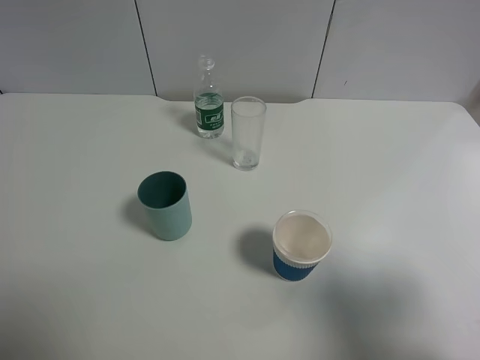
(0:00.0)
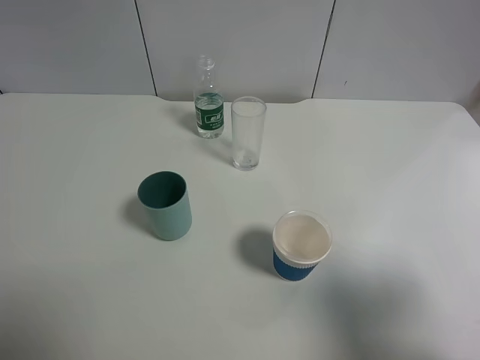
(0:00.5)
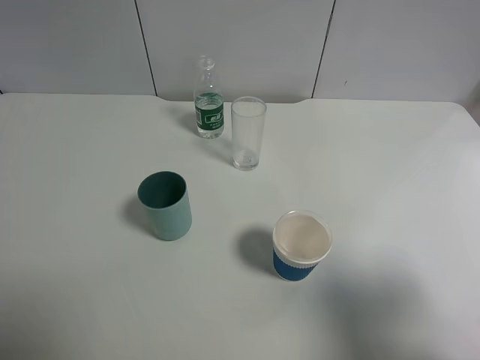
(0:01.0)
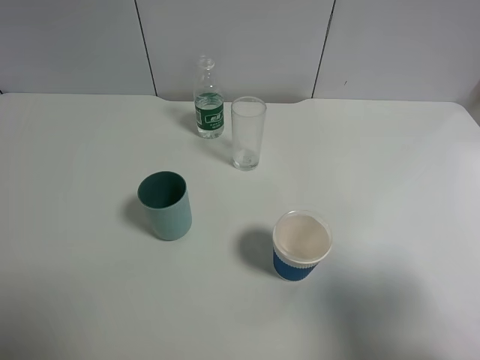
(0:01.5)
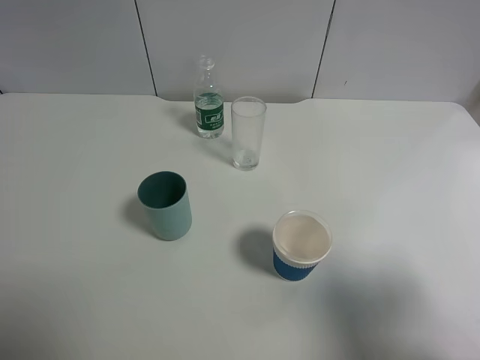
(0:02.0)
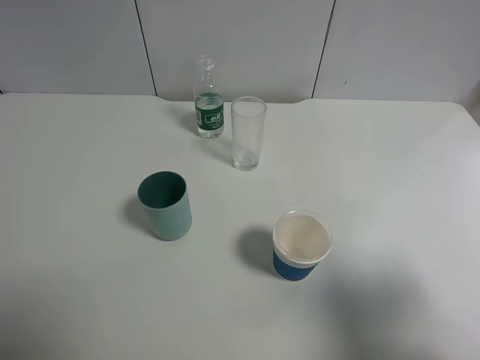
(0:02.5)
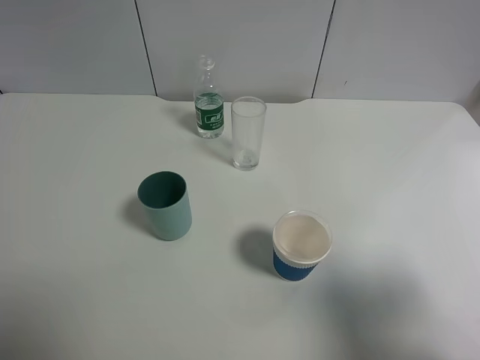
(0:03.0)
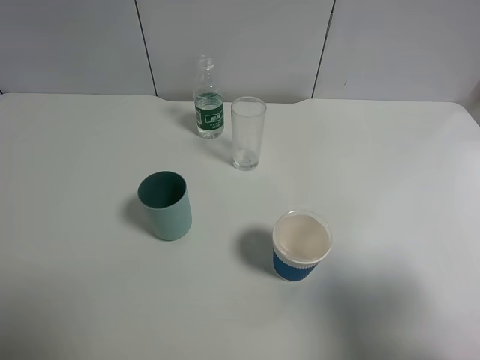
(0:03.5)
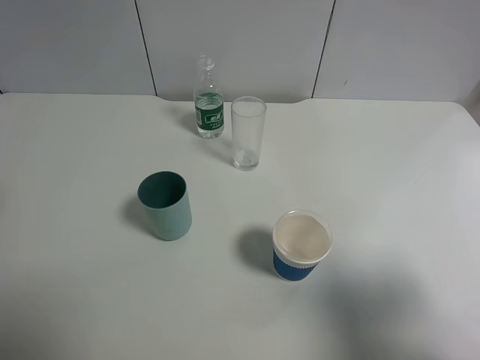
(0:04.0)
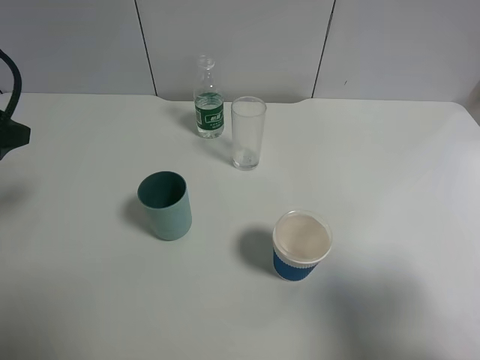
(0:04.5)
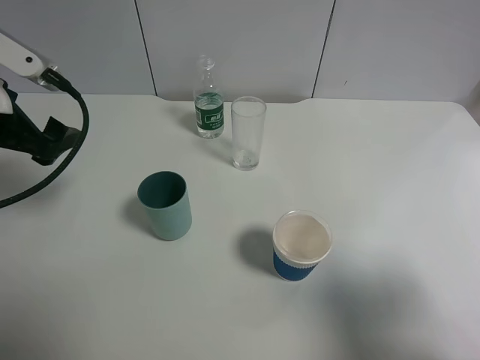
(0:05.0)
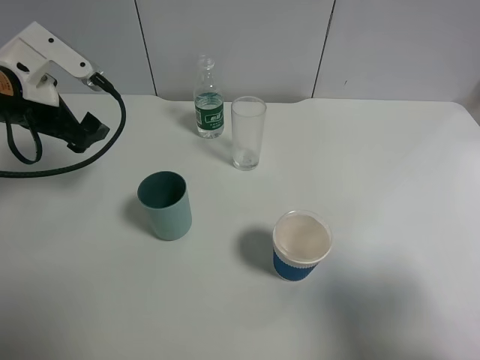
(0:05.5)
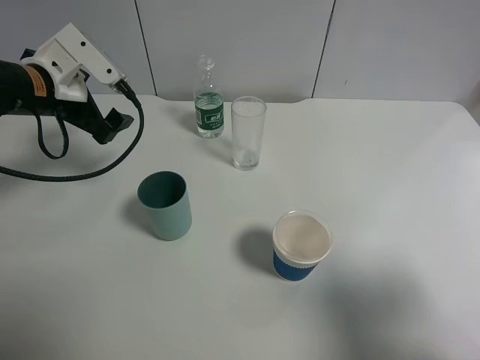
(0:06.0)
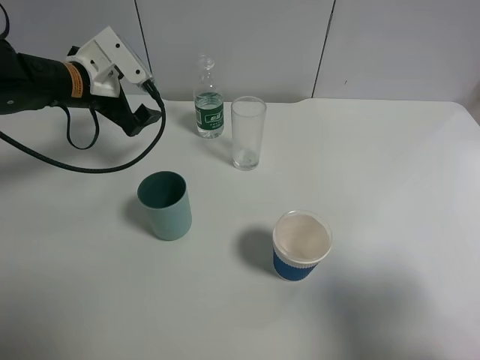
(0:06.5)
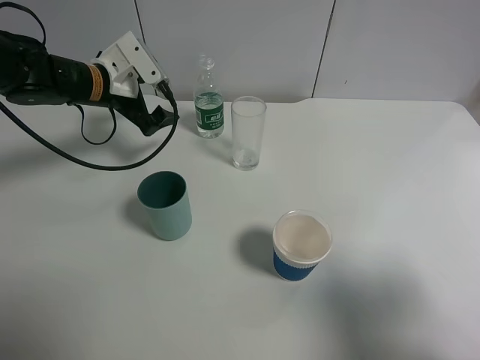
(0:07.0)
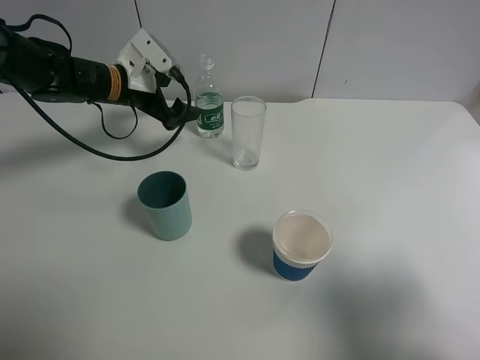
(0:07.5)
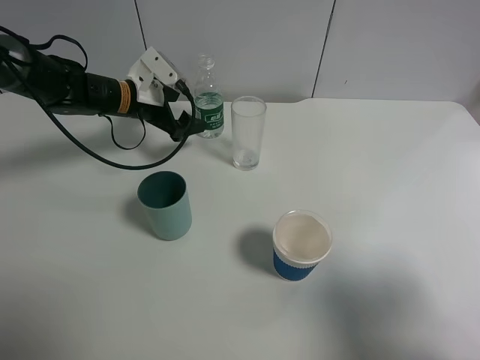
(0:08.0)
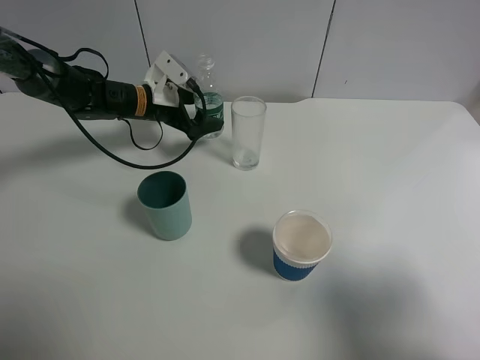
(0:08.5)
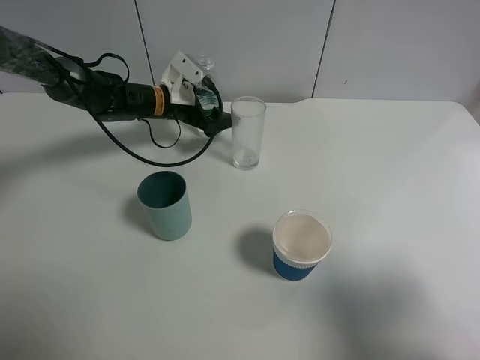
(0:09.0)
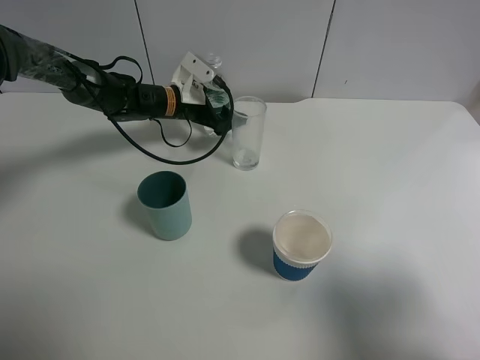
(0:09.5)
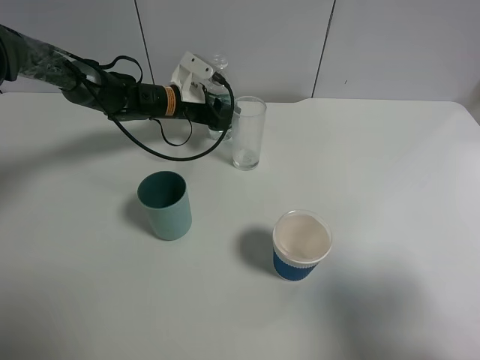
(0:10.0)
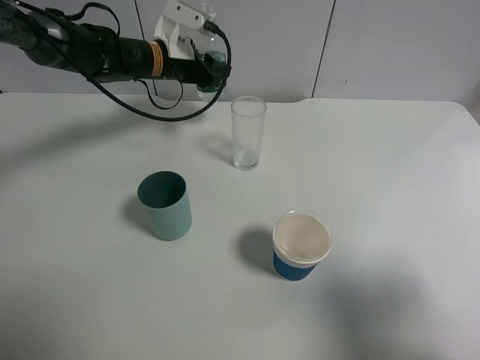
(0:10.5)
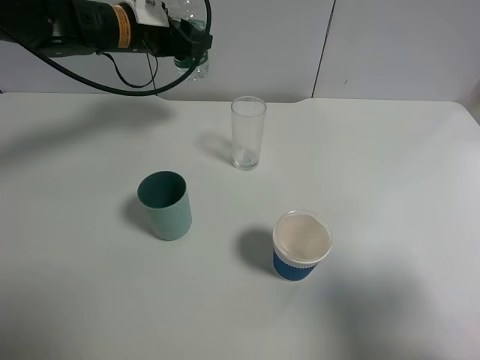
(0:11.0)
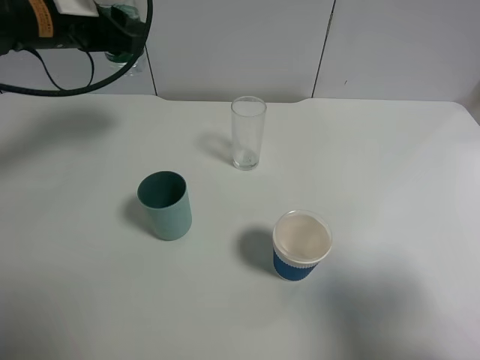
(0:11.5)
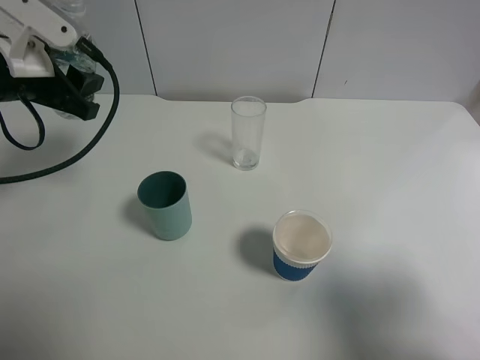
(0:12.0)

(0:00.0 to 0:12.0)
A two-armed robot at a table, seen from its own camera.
Task of the whole recording: use a gripper to hold the bottle of the drink and pour it into a random cup.
Step, 0:00.0 - 0:10.0: Grasp the mineral water bottle with the left gripper.
0:00.0 - 0:02.0: The two grippers keep their place.
0:04.0 - 0:06.0: The left gripper shifts about 20 cm forward and downward.
0:06.0 - 0:08.0: The left gripper travels forward, downward and to the right by about 15 cm.
0:08.0 - 0:10.0: The left gripper shifts about 5 cm to the right, and closes.
0:10.0 - 0:12.0: The left gripper shifts about 30 cm backward, upward and to the left.

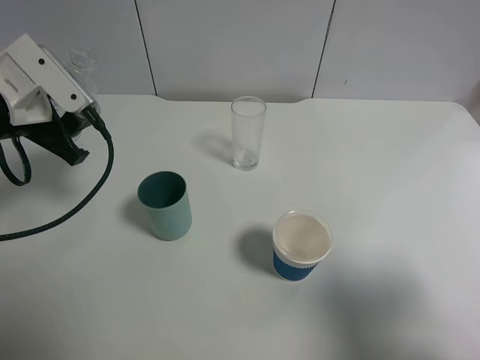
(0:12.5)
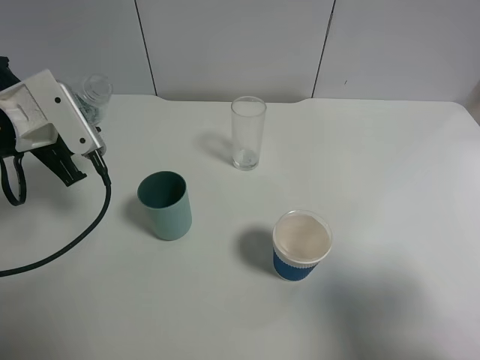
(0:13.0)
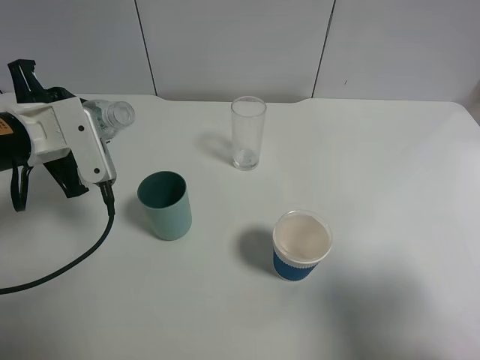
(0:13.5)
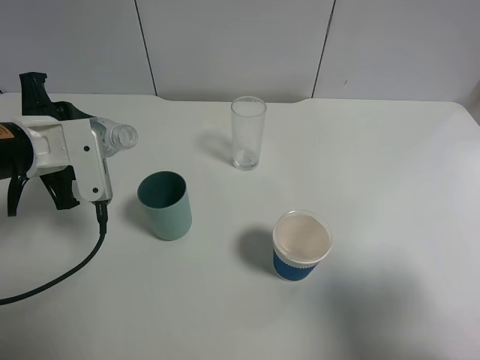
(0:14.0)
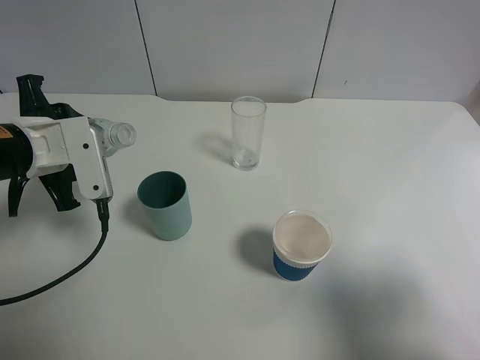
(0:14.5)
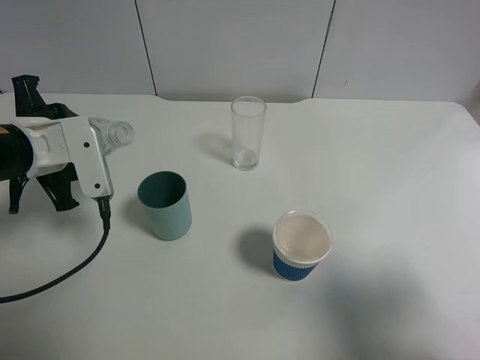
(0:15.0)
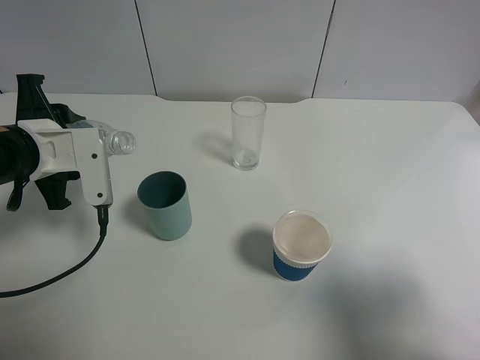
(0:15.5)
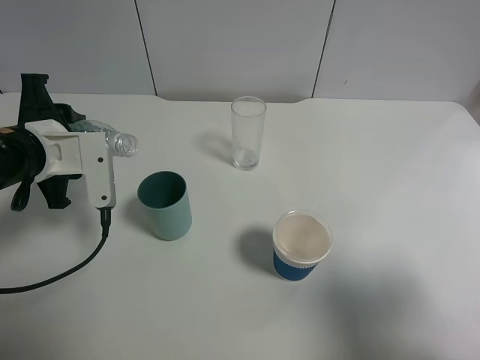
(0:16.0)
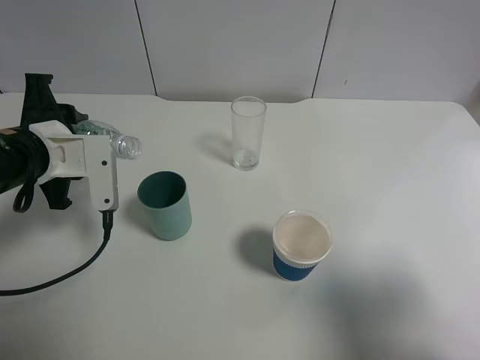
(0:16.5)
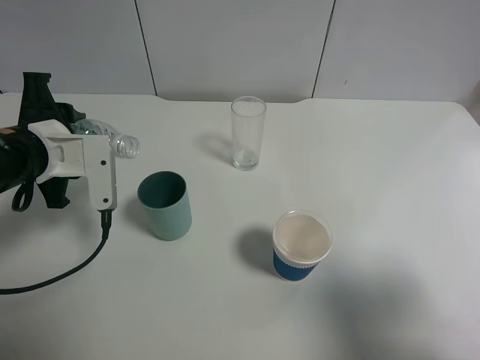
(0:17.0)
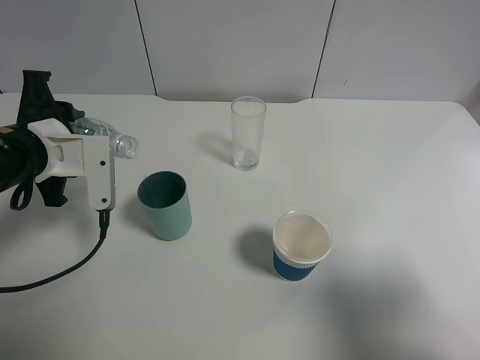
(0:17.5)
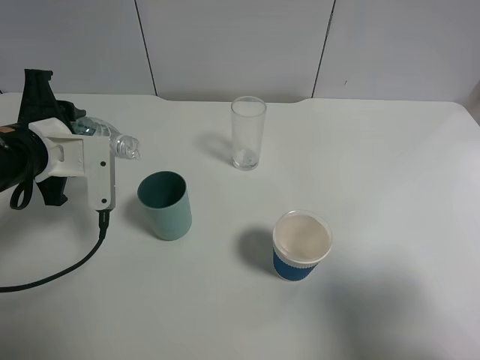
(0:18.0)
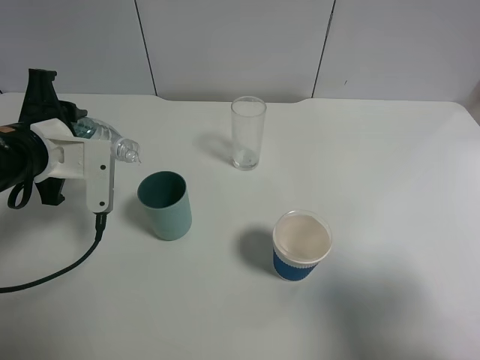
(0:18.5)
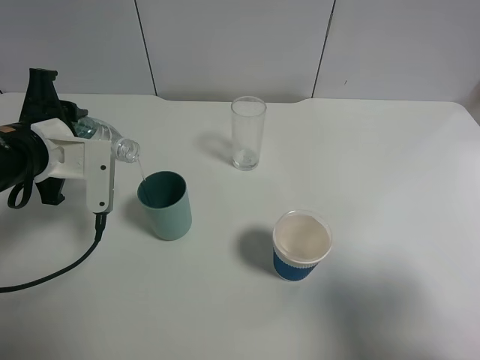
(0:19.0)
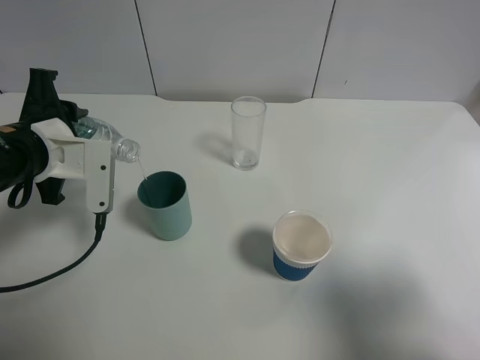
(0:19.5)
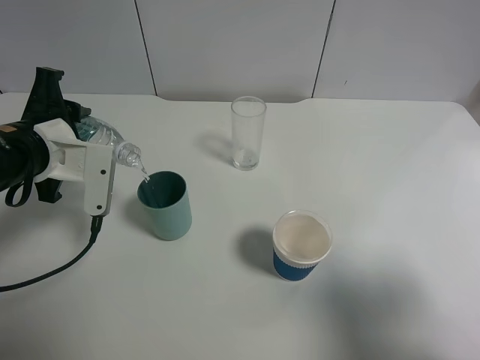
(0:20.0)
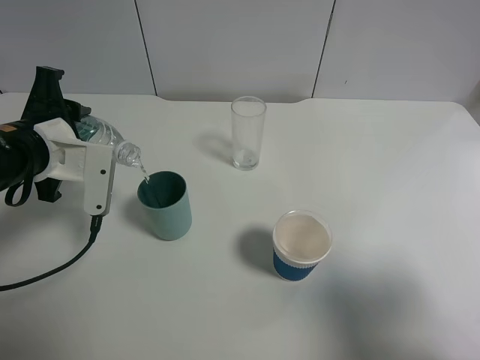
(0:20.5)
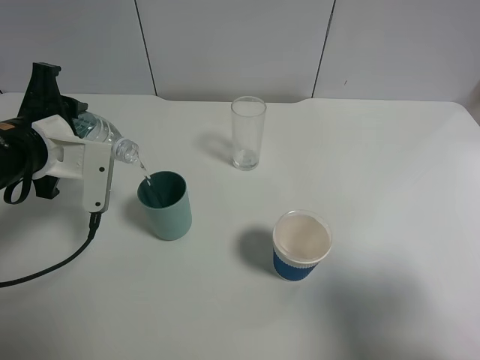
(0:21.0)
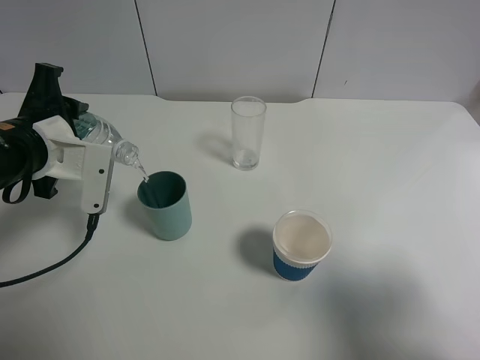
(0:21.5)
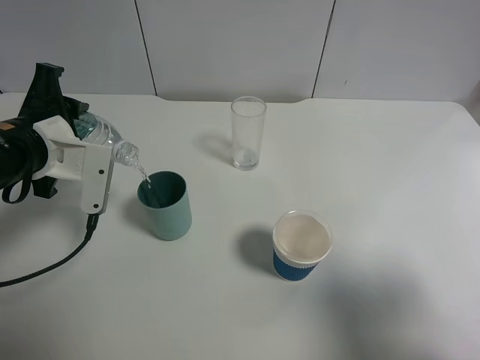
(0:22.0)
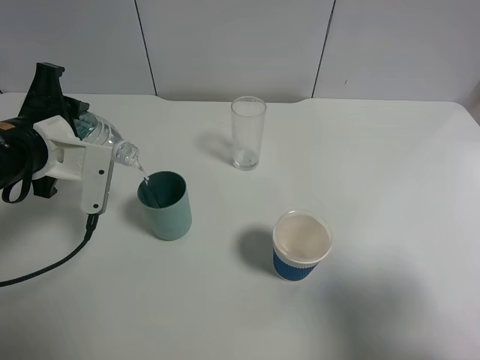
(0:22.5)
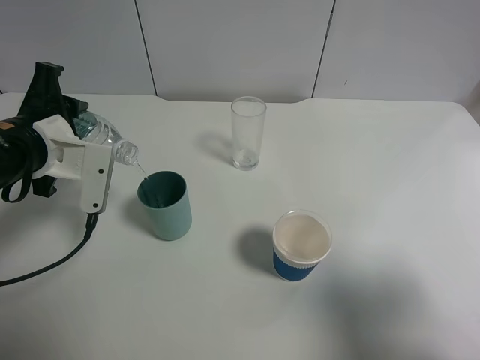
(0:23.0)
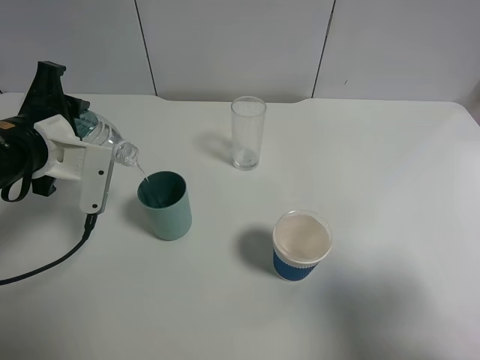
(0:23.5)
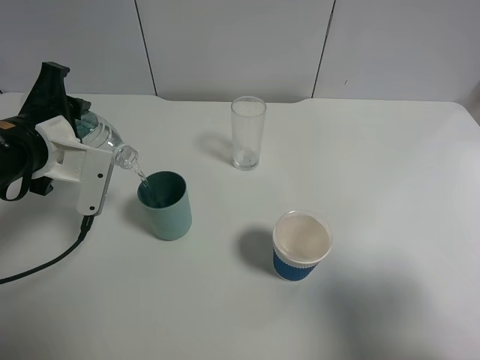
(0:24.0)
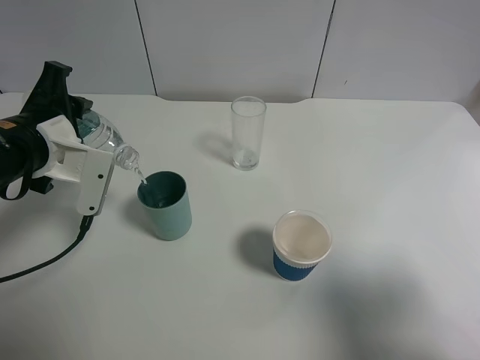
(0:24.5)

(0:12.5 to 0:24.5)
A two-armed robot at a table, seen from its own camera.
Task of the whole recording: use a gripper to hold the bottle of the drink and pour it into a random cup.
0:16.5 - 0:20.5: There are only small adjustments of the grippers.
0:20.5 - 0:22.5: The two grippers keep their place.
0:22.5 - 0:24.5: There are only small adjustments of the grippers.

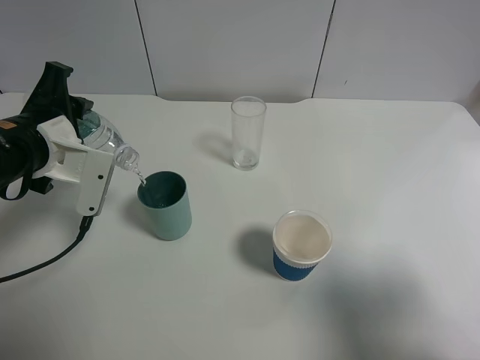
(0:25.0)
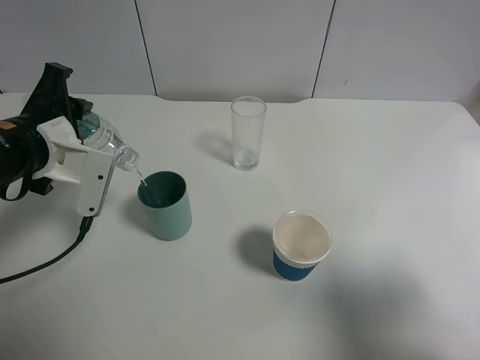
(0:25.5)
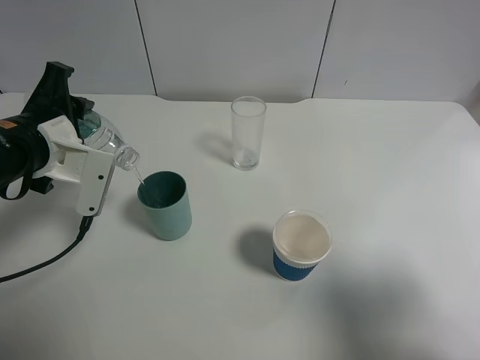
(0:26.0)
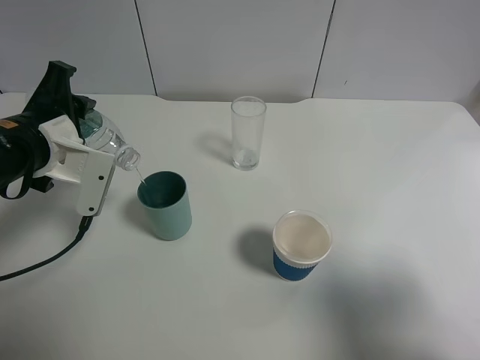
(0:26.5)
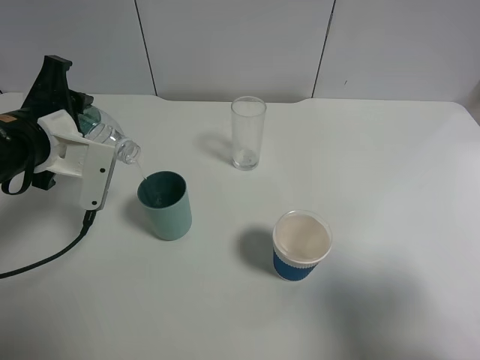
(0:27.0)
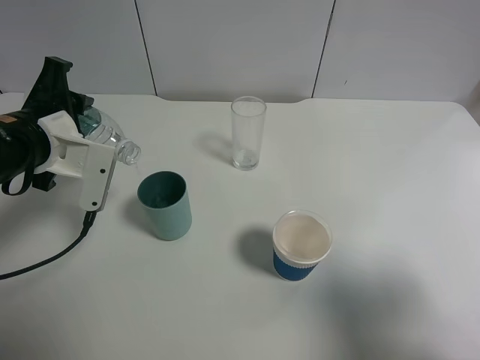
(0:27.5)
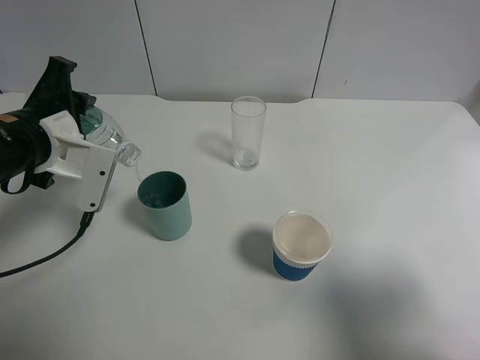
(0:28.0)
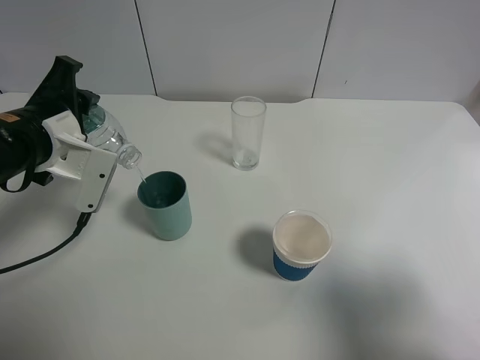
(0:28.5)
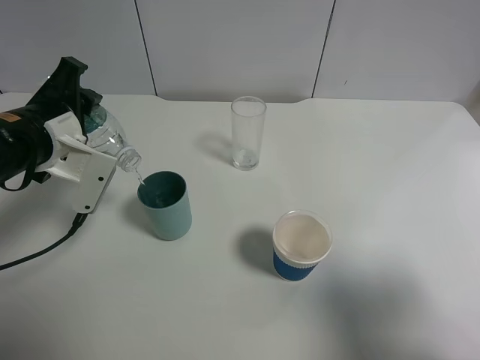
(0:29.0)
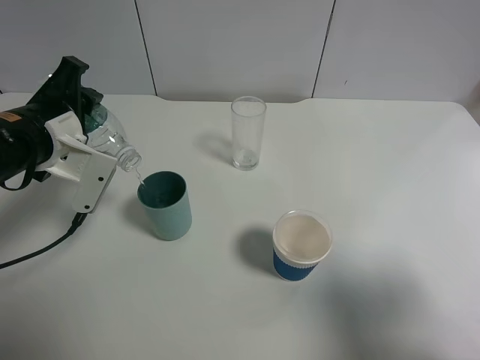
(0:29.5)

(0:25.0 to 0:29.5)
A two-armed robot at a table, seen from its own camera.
Task of the whole recording: use a gripper to hold the bottle of the drink and pour it into a random cup.
0:25.0 - 0:27.0: Both grippers stay about where they are.
0:27.0 - 0:29.5: The grippers stay close to where they were, moving slightly.
